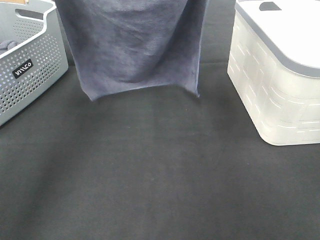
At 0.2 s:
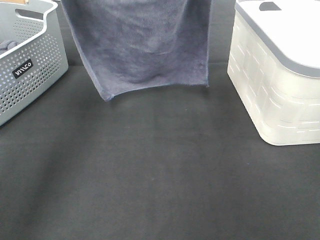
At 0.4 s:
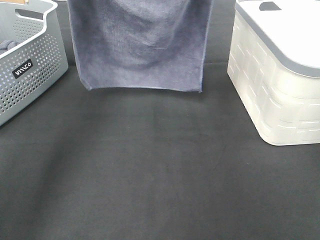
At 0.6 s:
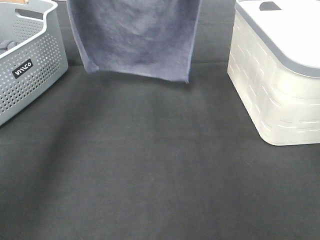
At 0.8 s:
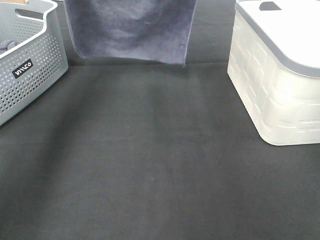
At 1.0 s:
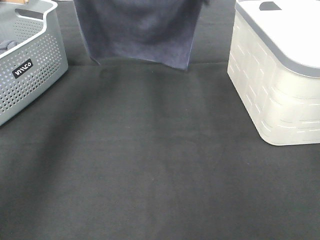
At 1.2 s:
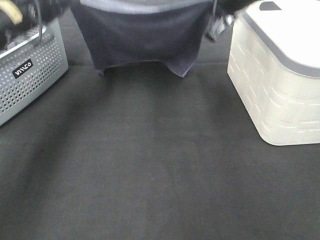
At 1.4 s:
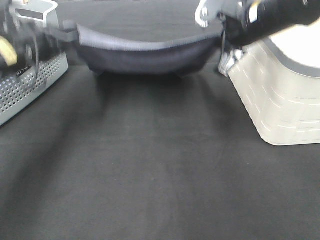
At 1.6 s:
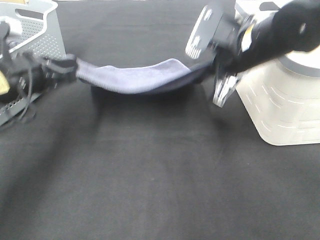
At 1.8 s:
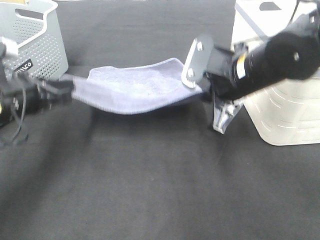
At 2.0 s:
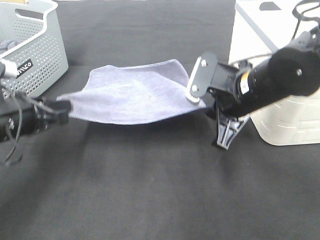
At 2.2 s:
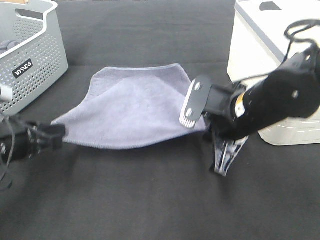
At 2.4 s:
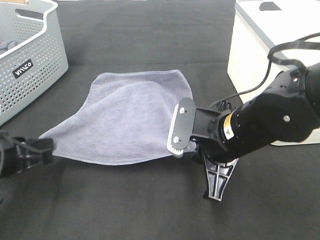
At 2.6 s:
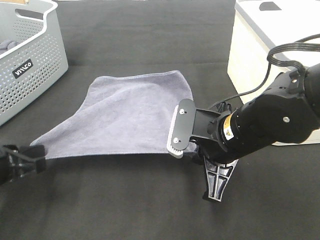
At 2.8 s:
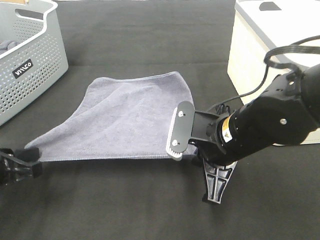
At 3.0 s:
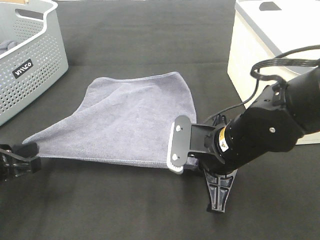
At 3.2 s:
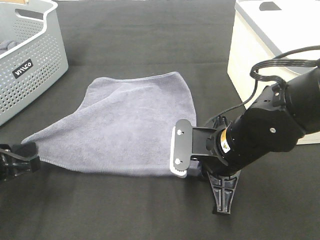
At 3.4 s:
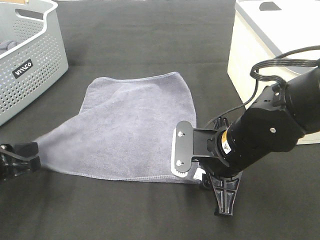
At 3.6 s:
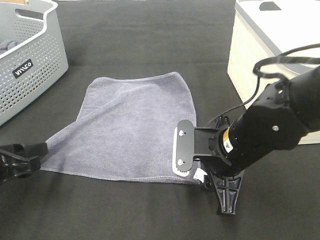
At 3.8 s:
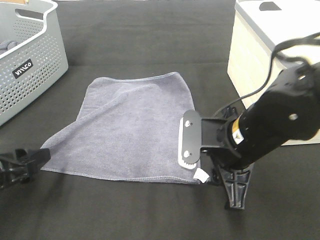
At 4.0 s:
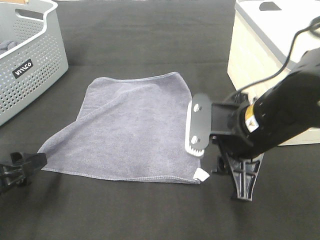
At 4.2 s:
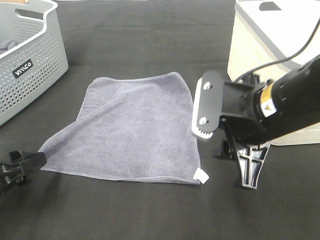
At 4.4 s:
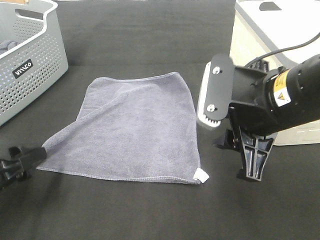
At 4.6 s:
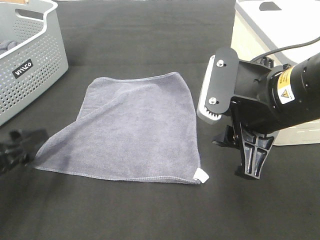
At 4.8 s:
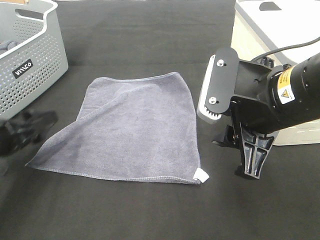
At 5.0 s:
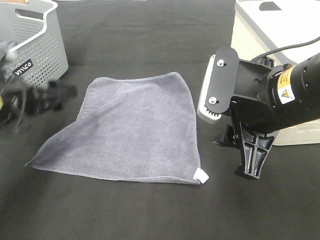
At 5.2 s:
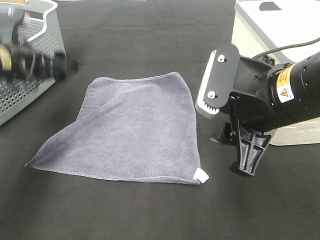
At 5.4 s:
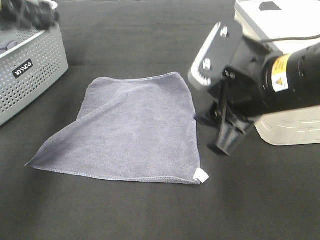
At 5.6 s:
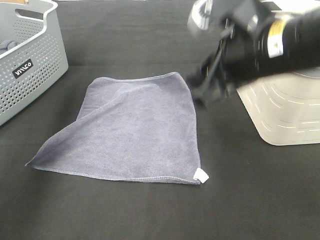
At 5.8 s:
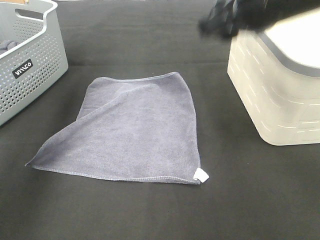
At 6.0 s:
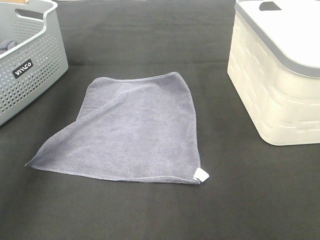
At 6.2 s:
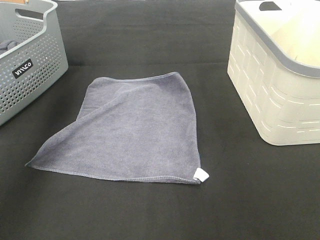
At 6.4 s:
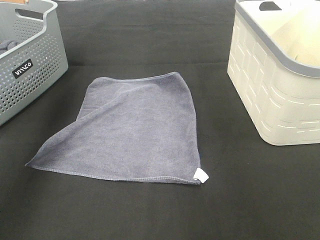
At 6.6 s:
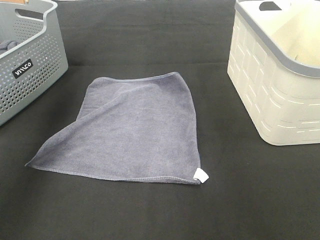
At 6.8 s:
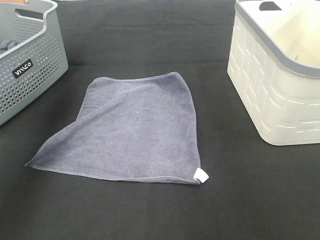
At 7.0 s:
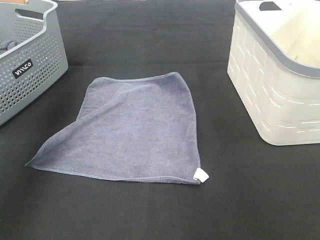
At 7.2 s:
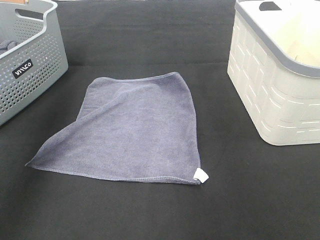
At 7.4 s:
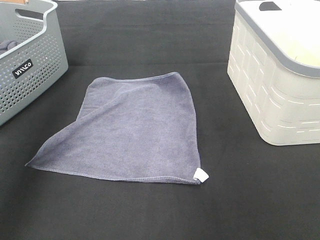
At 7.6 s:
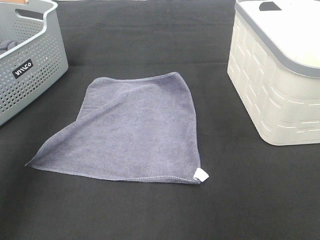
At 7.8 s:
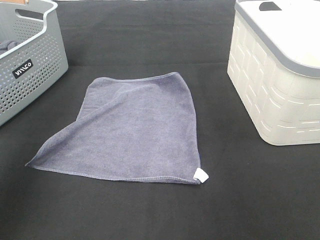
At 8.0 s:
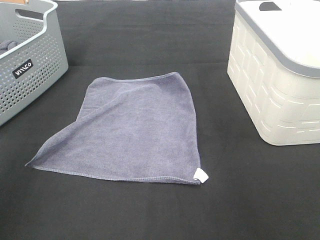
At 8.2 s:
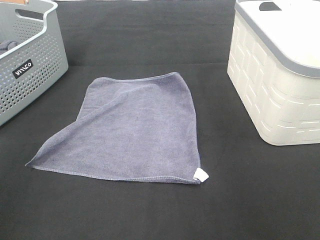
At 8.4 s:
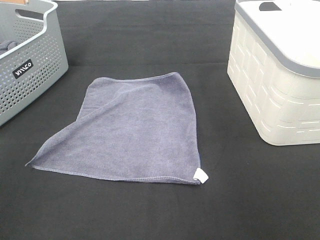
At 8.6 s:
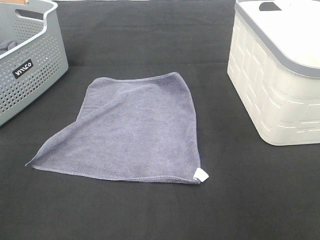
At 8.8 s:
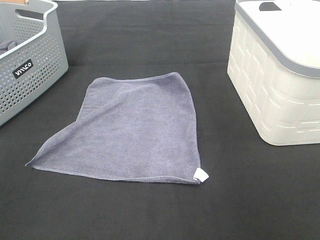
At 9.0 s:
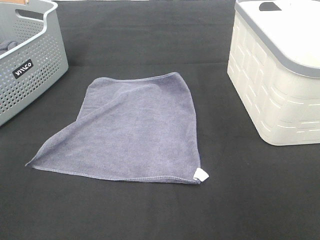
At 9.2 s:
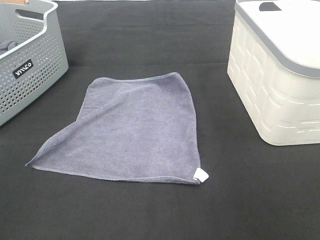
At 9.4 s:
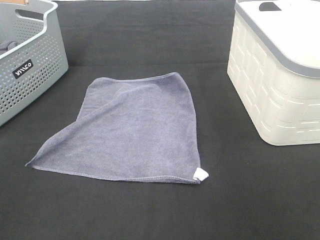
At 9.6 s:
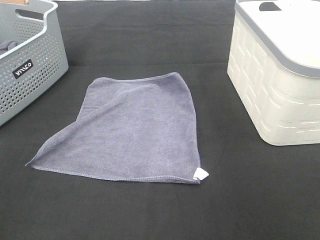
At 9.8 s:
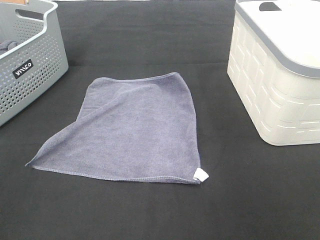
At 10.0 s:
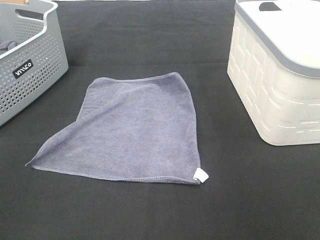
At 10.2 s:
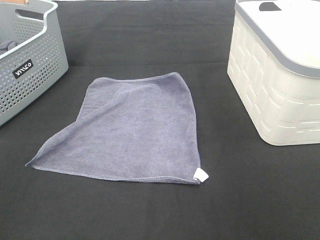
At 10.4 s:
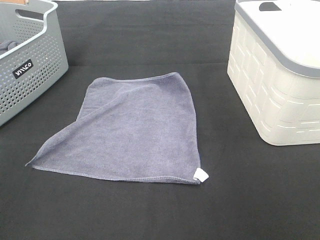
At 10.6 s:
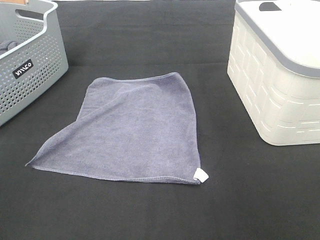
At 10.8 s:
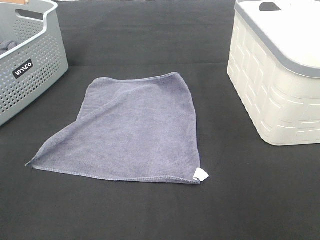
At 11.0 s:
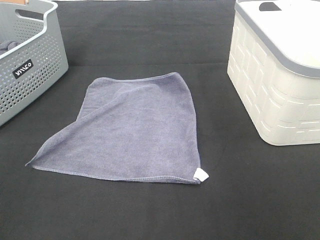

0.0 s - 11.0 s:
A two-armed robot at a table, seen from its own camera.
Task of the whole recording: Remove the towel and place it.
0.0 s - 1.6 s: Both grippers travel together downward, about 20 cm.
1.6 s - 3.2 s: The right gripper goes approximately 15 cm downward and backward. Meanwhile the left gripper travels backward and downward by roughly 15 cm.
3.2 s - 4.8 s: The left gripper opens its fingers. Meanwhile the right gripper is displaced upward by approximately 10 cm, and opens up.
4.8 s - 6.2 s: The left gripper shifts approximately 35 cm upward and forward. The right gripper shifts approximately 25 cm upward, forward and to the right.
6.2 s - 7.8 s: The left gripper travels backward and downward by about 25 cm. Meanwhile the right gripper heads backward, covering about 25 cm.
7.8 s - 9.4 s: The left gripper shifts roughly 15 cm backward.
9.4 s - 11.0 s: Neither gripper changes place.

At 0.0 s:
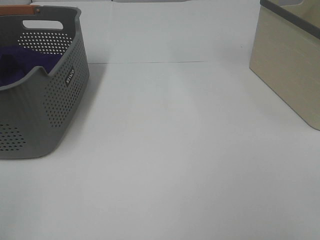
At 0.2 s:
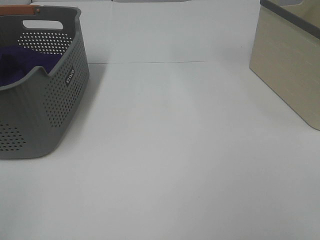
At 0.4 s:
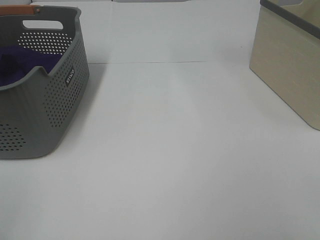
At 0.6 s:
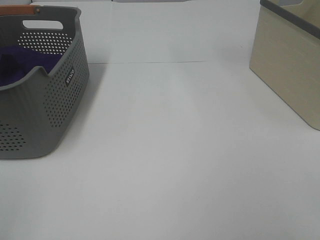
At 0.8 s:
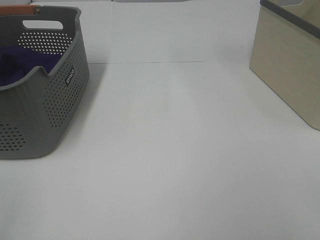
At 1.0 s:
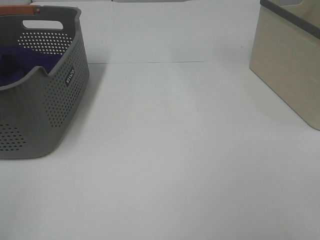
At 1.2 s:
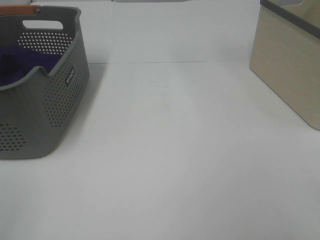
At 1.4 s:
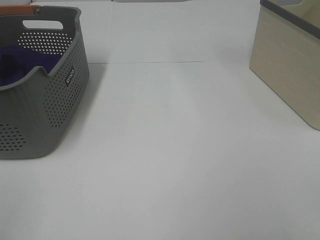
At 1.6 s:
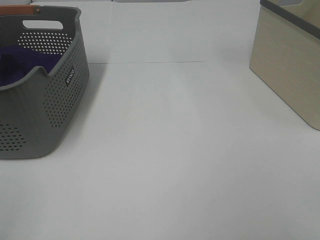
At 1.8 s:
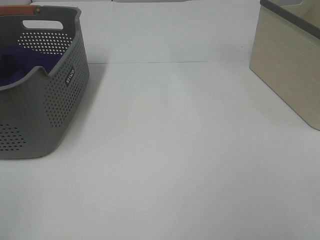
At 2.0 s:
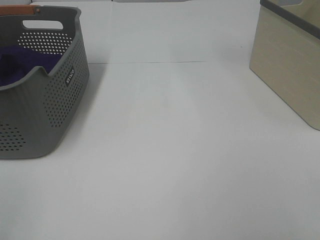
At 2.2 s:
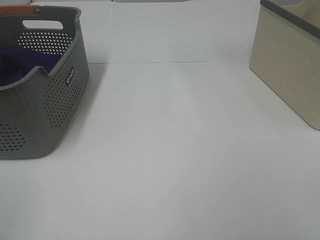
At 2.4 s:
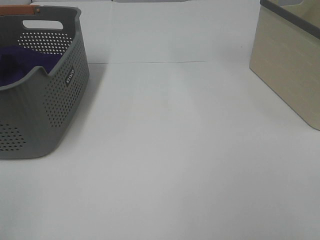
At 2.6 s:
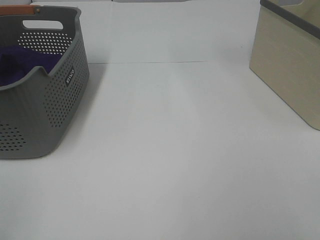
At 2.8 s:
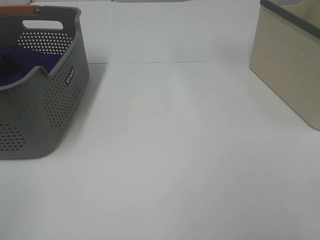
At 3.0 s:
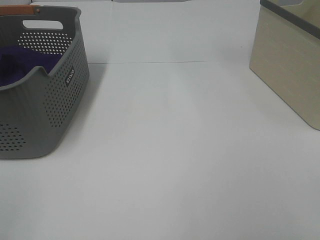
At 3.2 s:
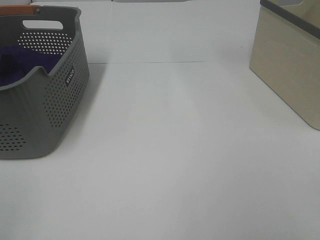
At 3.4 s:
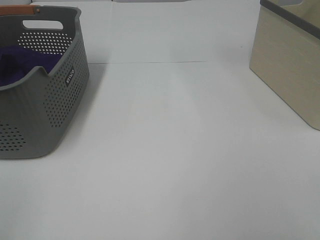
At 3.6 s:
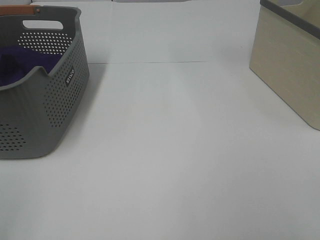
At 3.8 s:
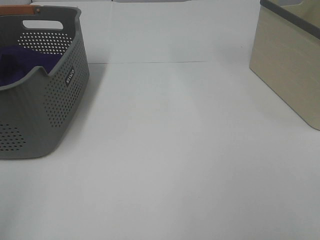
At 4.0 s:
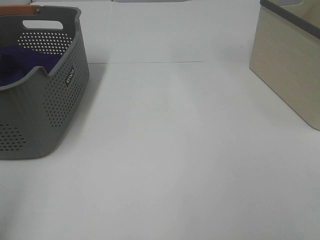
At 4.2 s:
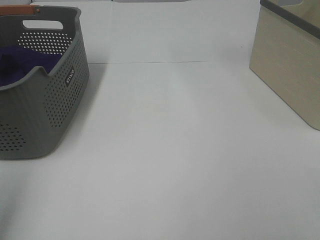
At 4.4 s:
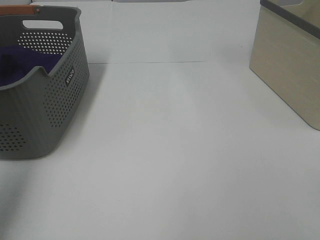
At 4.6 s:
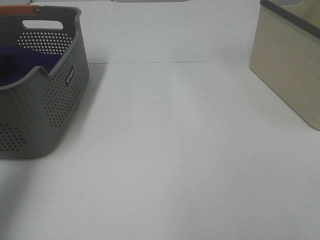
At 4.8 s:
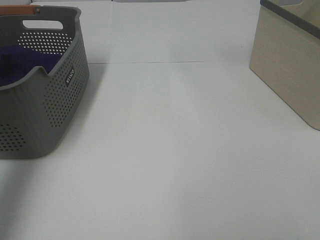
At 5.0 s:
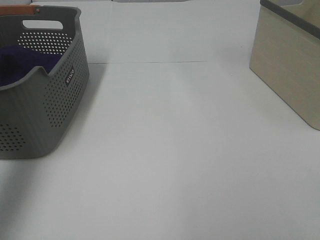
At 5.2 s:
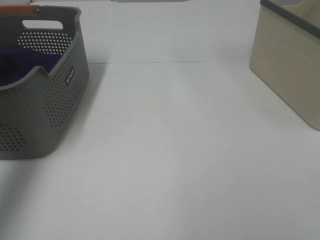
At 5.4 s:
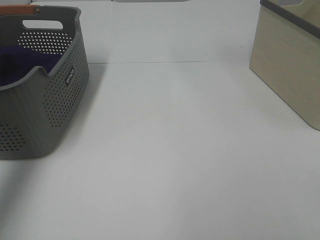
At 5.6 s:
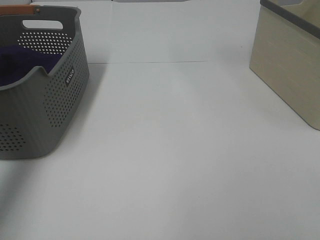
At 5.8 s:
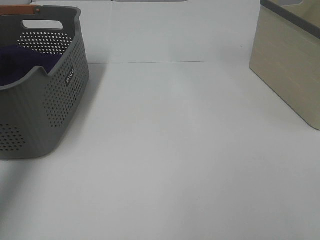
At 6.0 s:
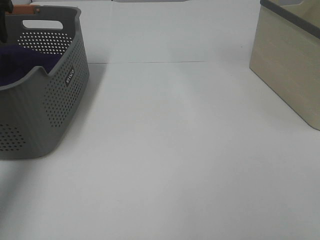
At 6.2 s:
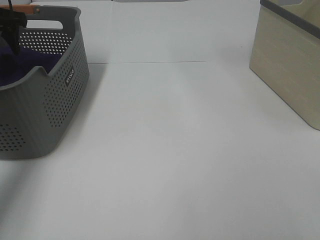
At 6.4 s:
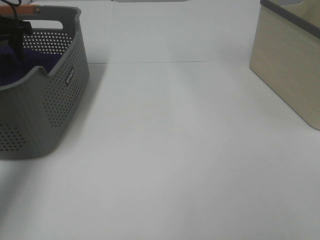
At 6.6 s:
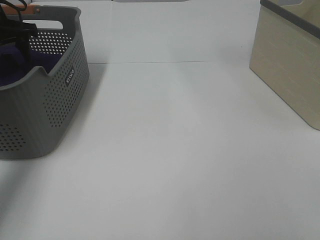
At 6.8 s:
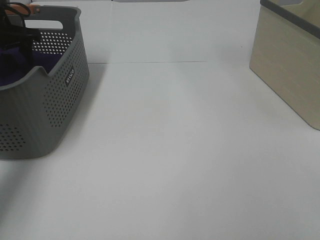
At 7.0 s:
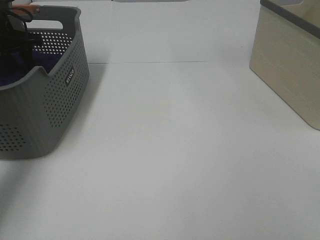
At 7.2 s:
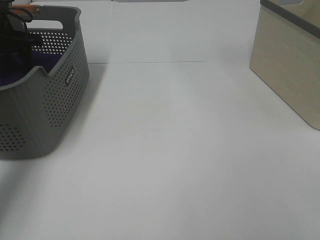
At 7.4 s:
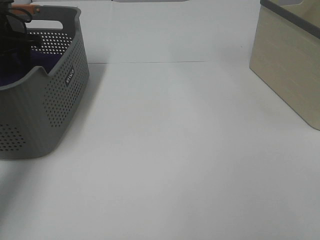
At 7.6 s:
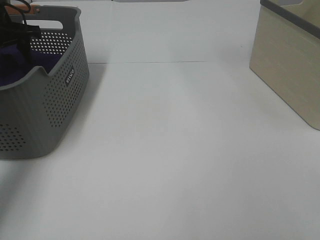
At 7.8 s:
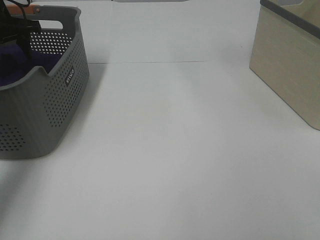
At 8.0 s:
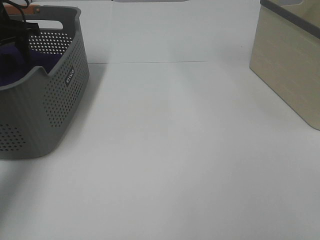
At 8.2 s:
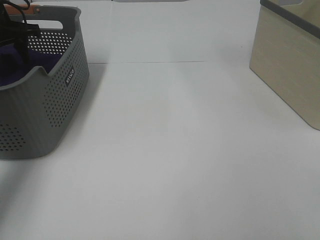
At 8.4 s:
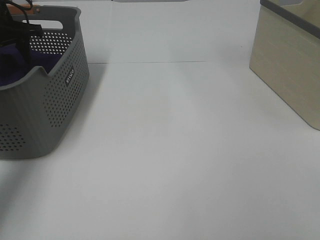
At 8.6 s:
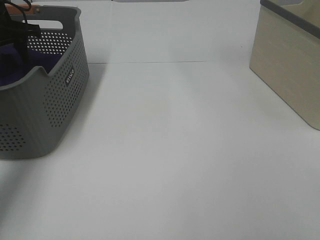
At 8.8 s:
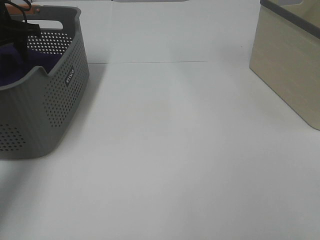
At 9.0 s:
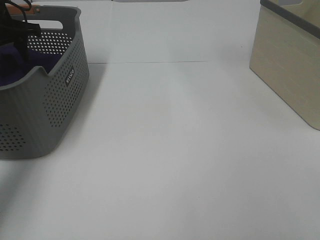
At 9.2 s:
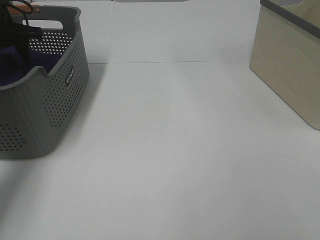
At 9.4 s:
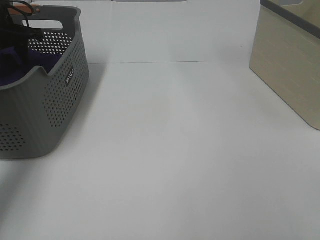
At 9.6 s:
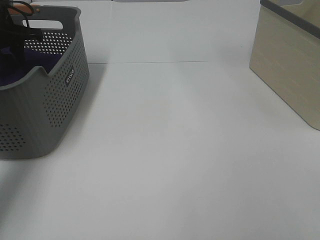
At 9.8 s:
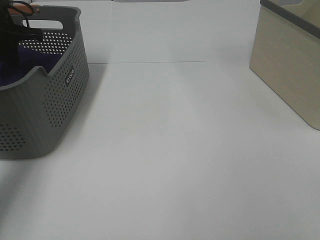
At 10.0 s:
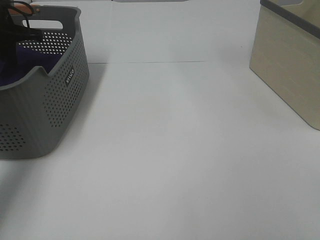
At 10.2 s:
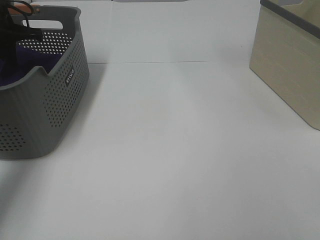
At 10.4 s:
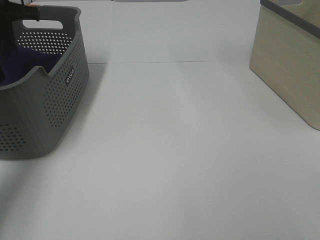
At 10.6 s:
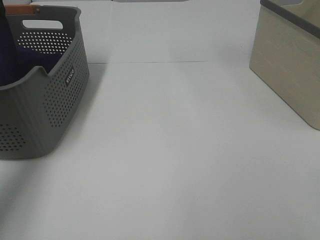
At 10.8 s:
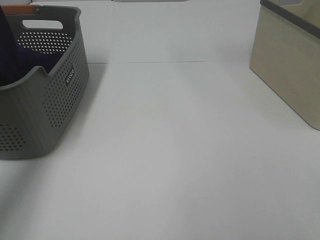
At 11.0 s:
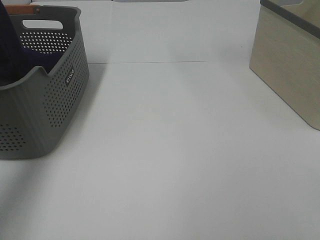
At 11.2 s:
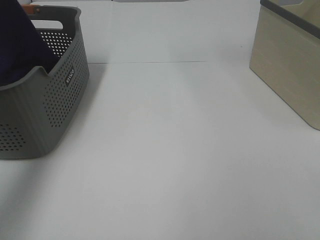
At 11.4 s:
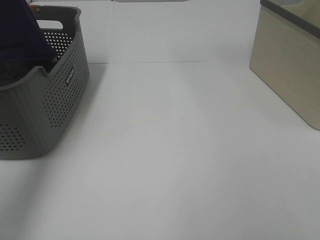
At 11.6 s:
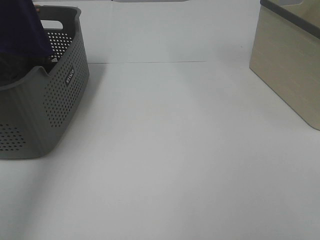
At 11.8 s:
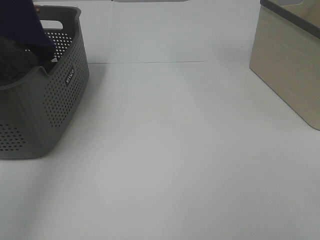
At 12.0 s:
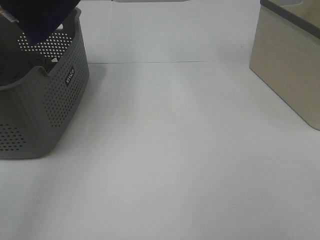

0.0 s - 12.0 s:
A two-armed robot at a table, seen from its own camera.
Task of the whole recording: Remove the towel and place it.
0.0 s - 3.0 s: Neither gripper changes place.
3.0 s - 4.4 s: The left gripper is displaced forward and upward by roughly 20 cm.
6.0 s - 7.6 s: The left gripper moves downward, some 5 cm.
7.6 s - 9.0 s: Both grippers stay about where they are.
9.0 s - 10.4 s: The left gripper closes its fingers.
10.4 s - 12.0 s: The left gripper heads upward and backward, covering roughly 35 cm.
